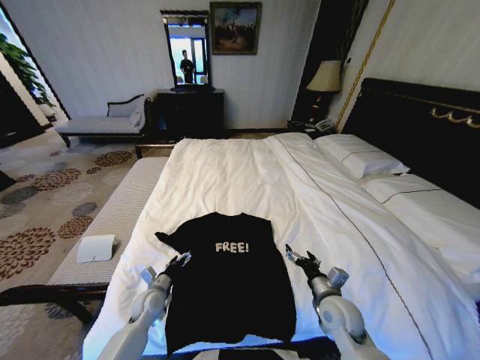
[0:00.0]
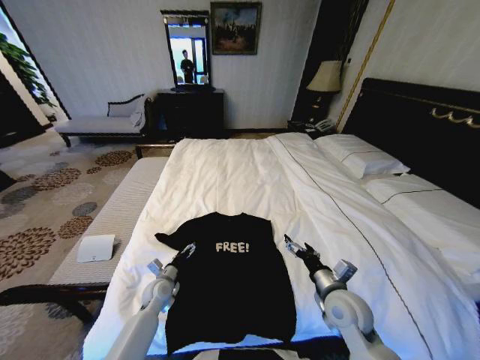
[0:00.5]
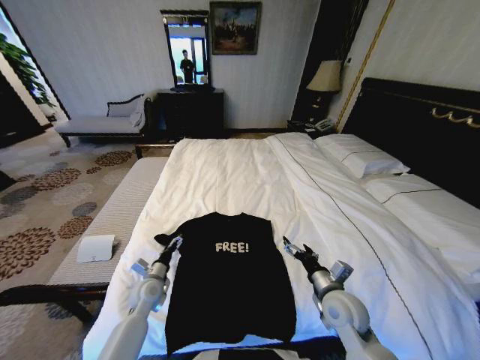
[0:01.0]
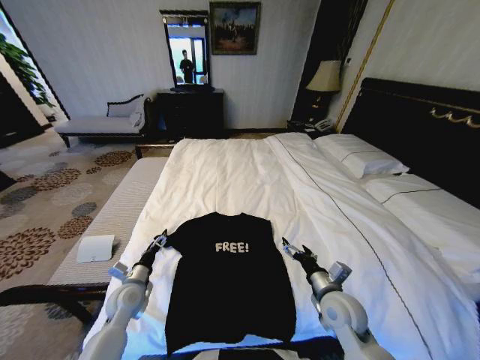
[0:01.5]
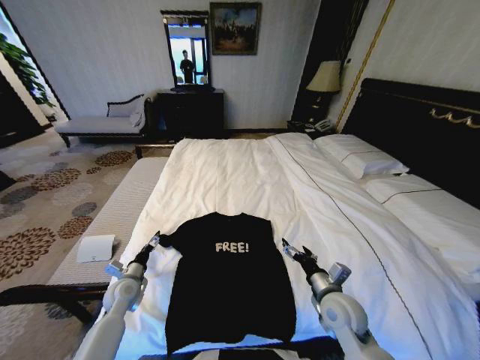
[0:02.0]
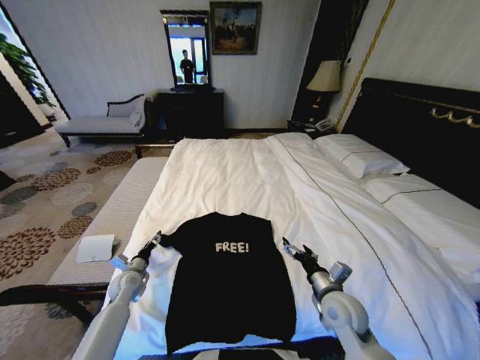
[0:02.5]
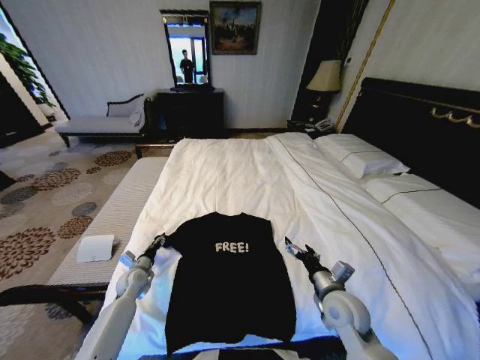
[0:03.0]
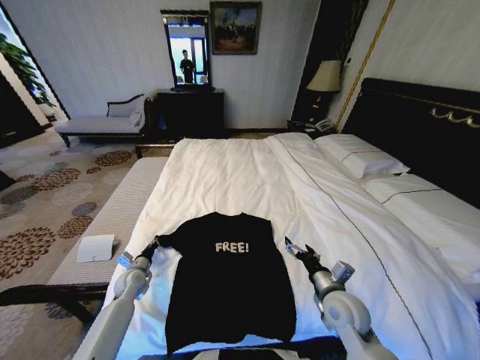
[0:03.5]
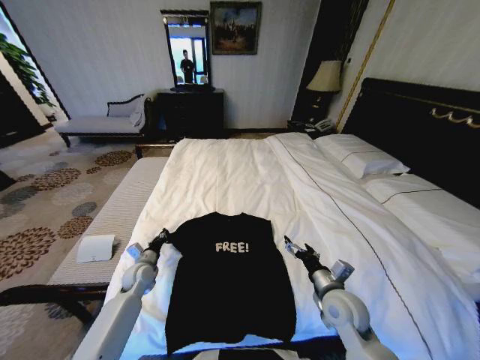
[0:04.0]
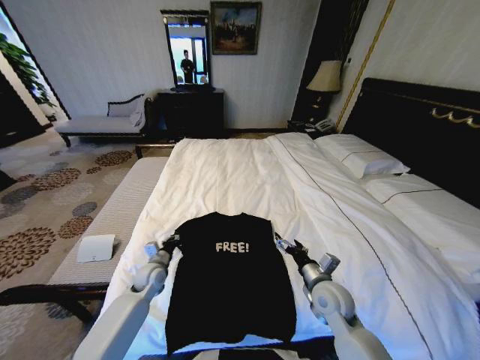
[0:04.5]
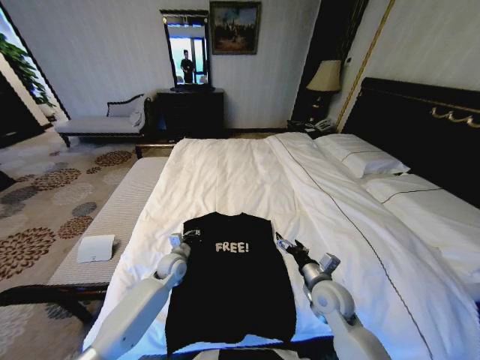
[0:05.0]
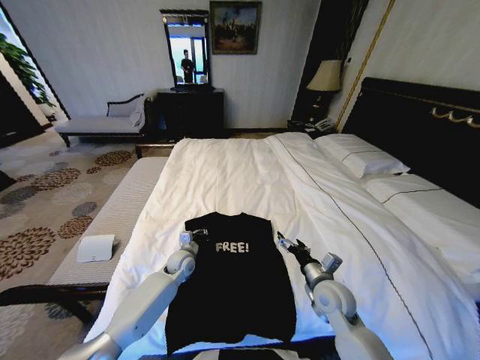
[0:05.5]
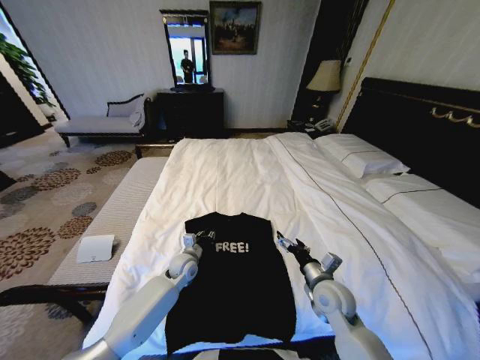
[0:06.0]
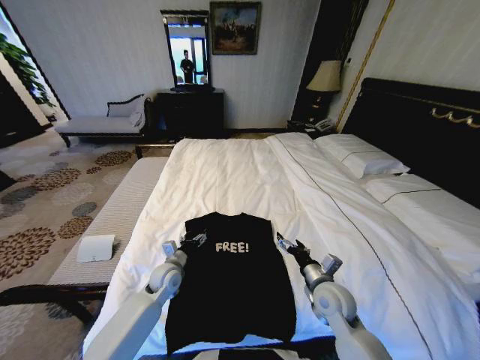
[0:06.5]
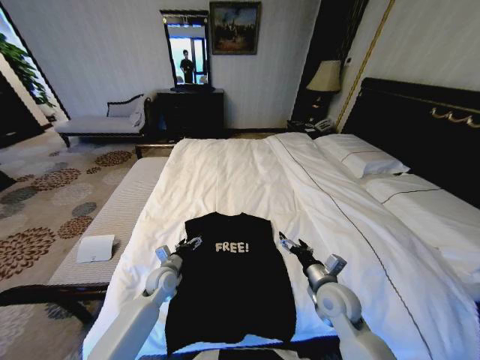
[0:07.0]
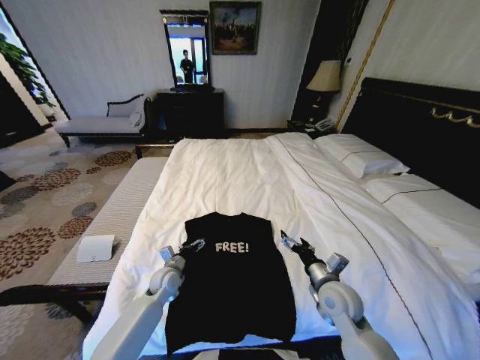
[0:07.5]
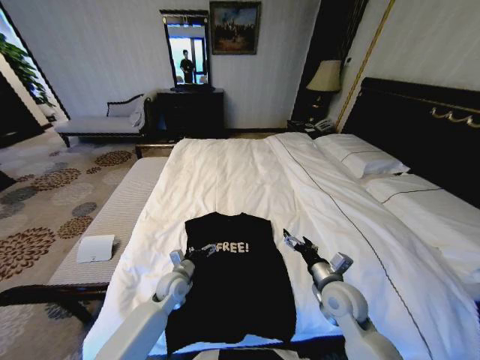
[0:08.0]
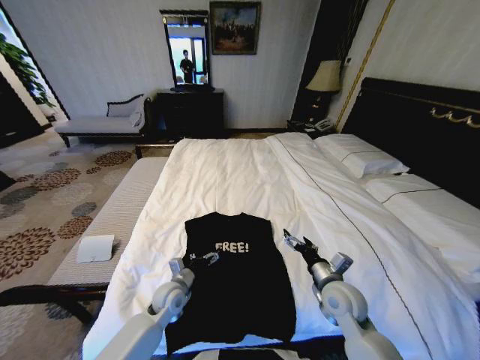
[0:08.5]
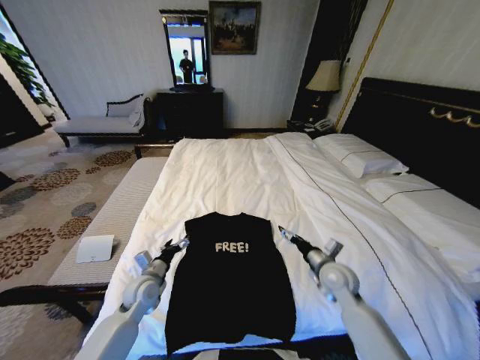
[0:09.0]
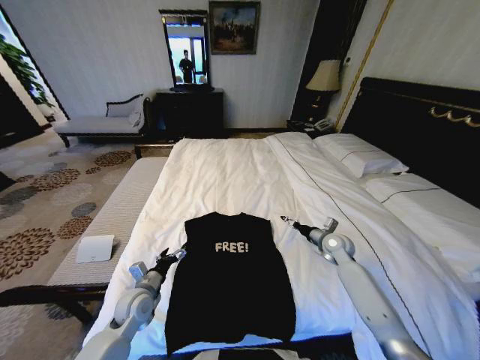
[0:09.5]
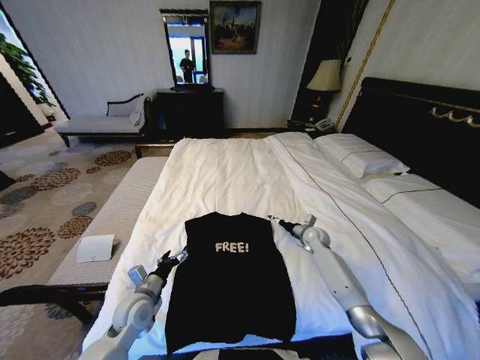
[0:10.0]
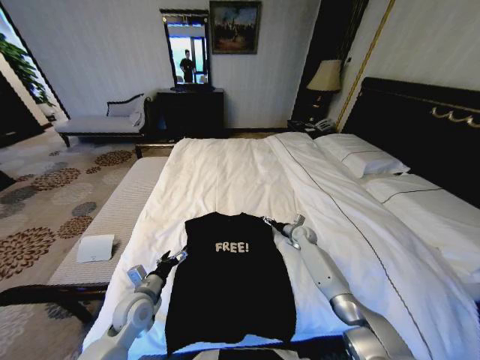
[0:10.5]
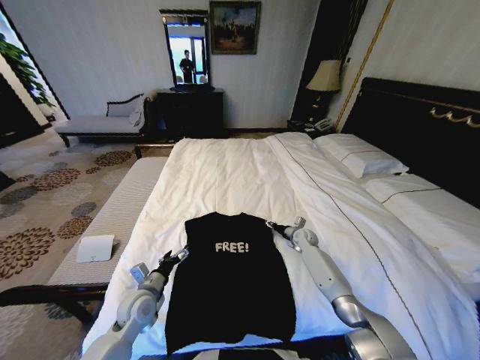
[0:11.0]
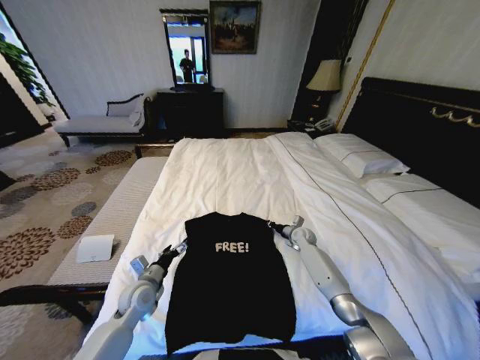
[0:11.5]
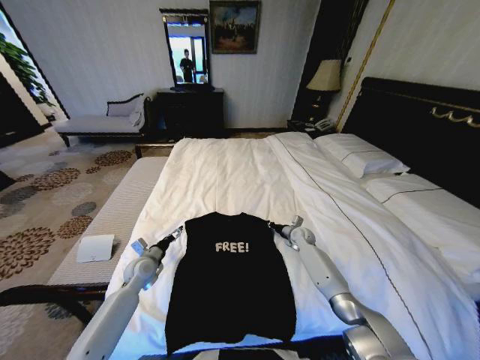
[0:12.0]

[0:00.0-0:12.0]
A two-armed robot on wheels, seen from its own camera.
Task of the whole recording: Fold the clothes on the bed.
0:00.0 to 0:02.0: The left gripper goes some 10 cm to the left.
0:02.0 to 0:04.0: The left gripper shifts roughly 5 cm forward, and closes.
0:04.0 to 0:06.0: The left gripper heads to the right, covering about 15 cm.
0:06.0 to 0:08.0: The left gripper travels backward by approximately 5 cm, and opens.
0:08.0 to 0:10.0: The left gripper heads backward and to the left, covering about 10 cm; the right gripper goes approximately 25 cm forward.
0:10.0 to 0:12.0: The left gripper heads forward, covering approximately 10 cm. Meanwhile the right gripper shifts by approximately 5 cm, and closes.

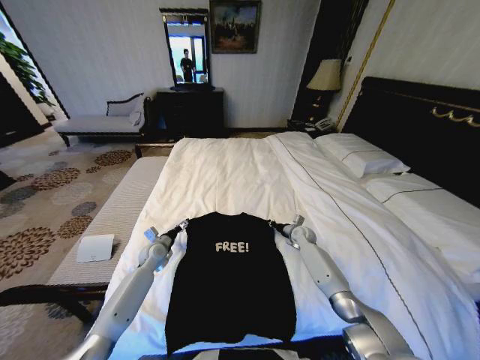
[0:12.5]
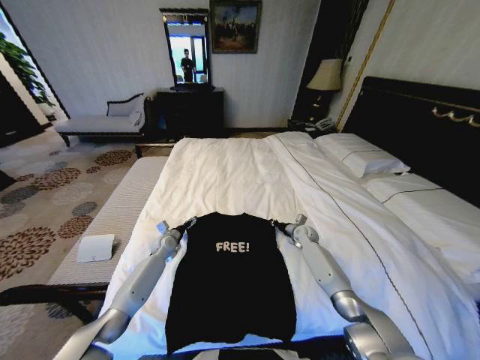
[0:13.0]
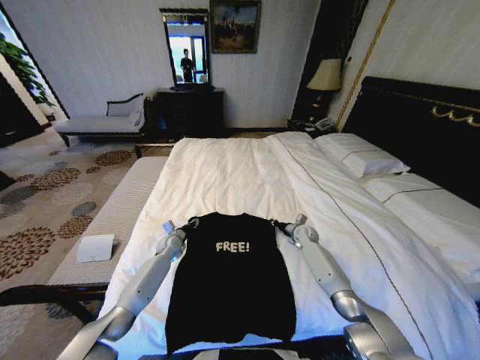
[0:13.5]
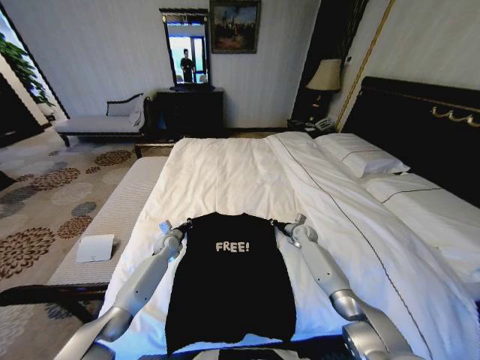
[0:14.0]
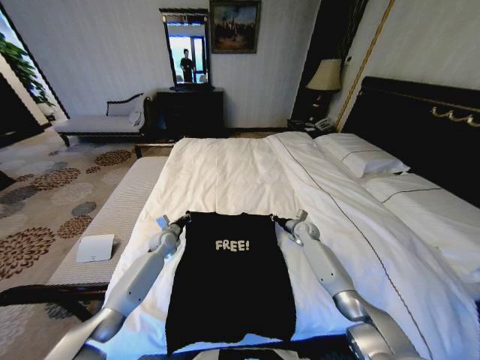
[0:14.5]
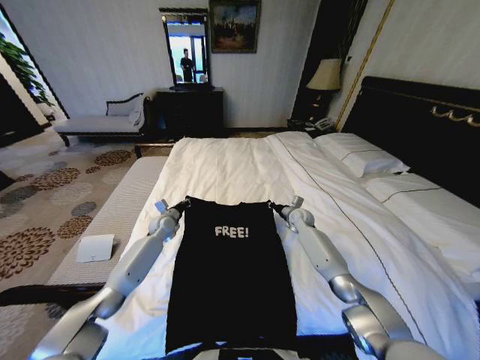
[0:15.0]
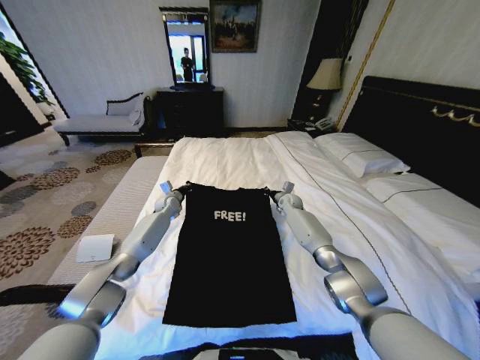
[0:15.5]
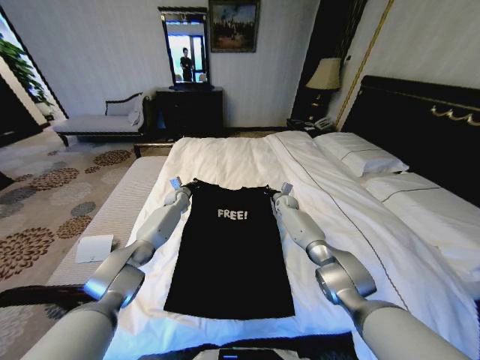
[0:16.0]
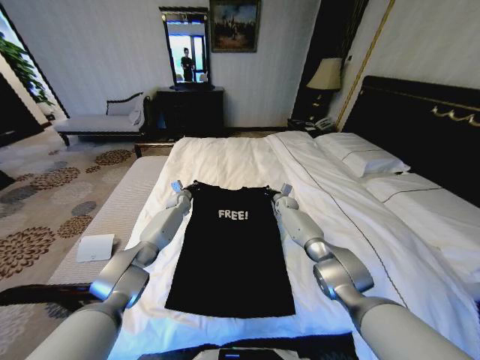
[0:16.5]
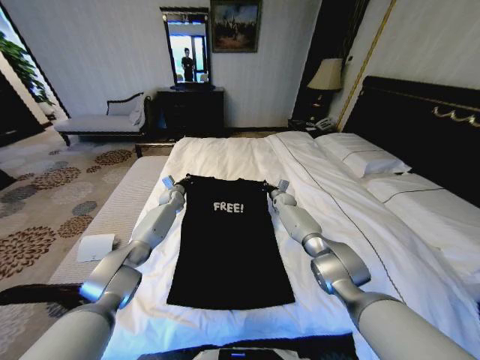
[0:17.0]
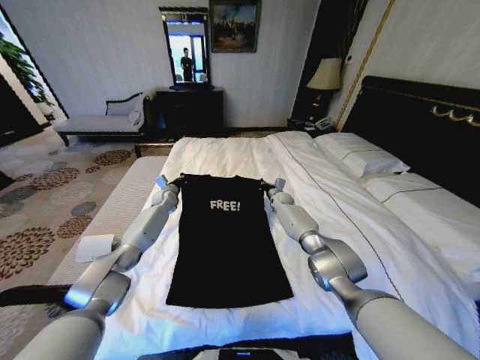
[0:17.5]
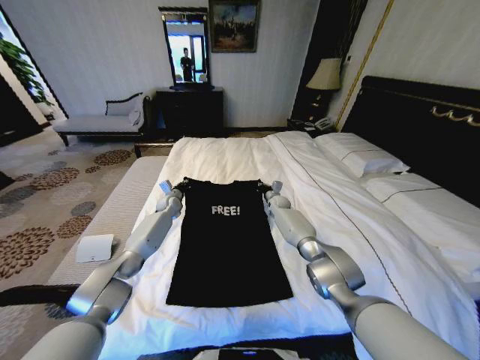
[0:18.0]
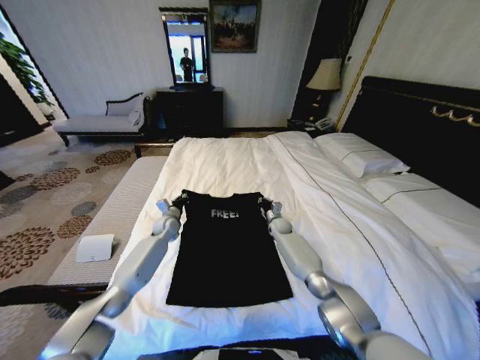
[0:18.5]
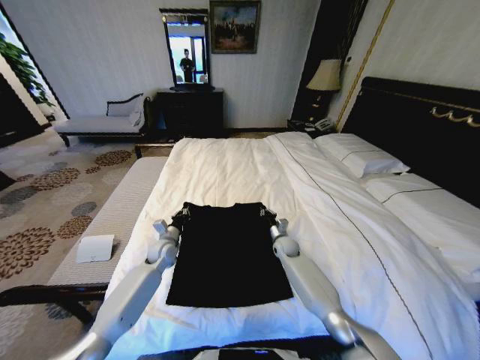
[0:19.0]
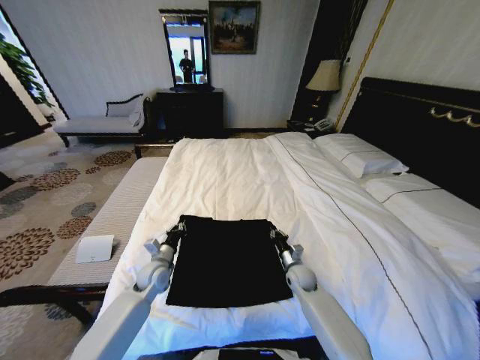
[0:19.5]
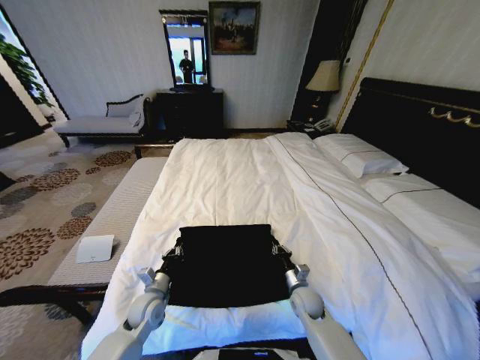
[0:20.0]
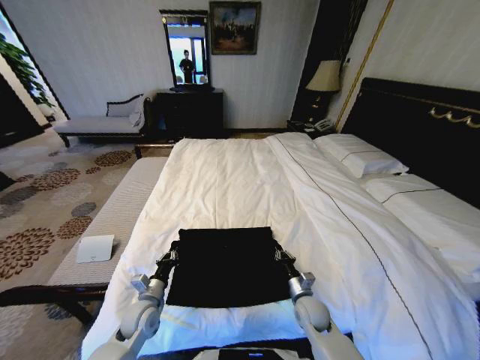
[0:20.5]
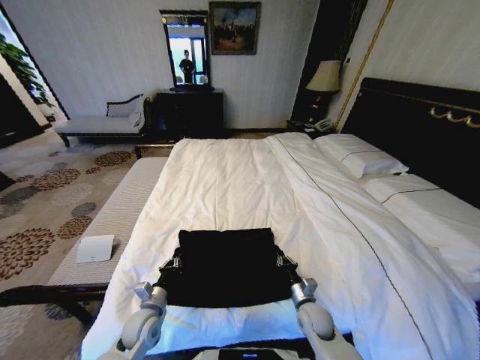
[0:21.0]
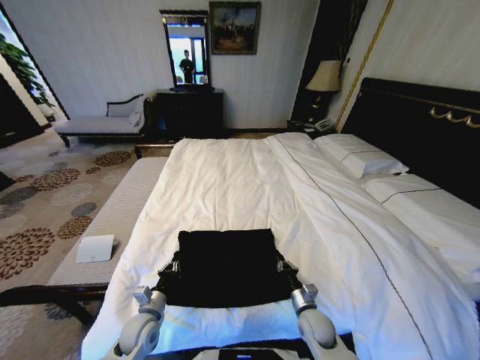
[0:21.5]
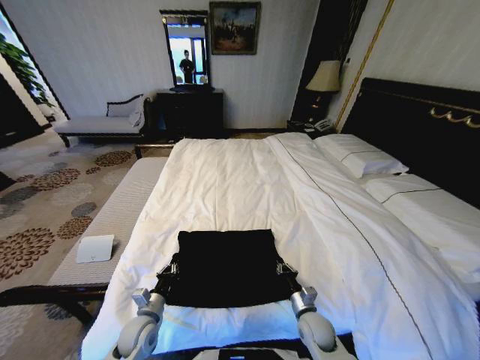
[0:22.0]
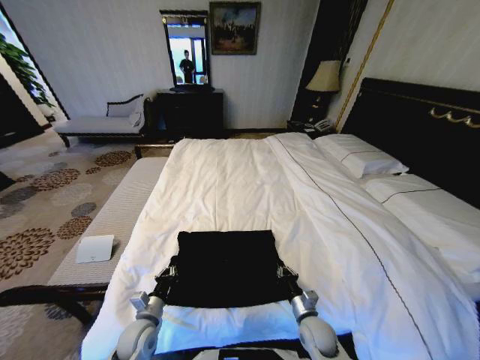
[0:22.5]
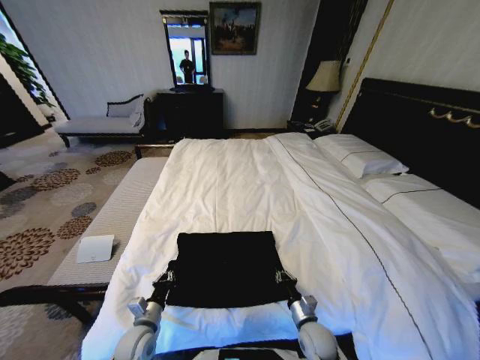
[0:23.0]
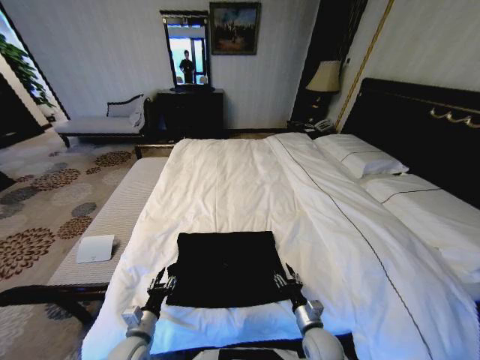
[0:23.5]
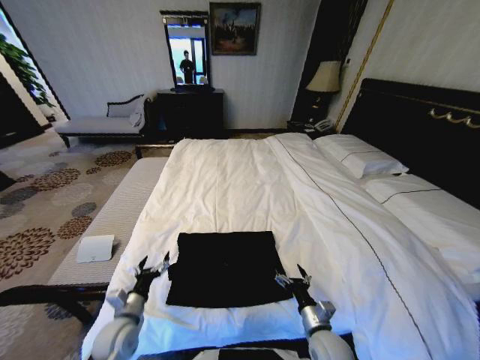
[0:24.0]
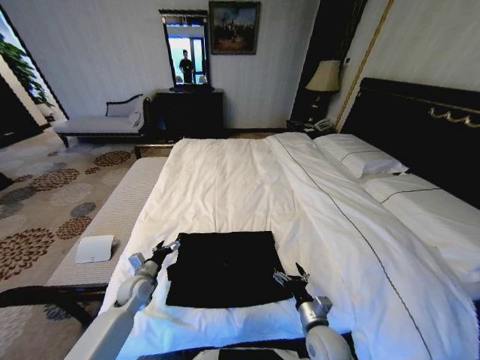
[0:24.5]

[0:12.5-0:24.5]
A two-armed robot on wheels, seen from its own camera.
Task of the whole recording: Fold the clothes on the bed.
0:12.5 to 0:14.5: The left gripper ends up approximately 5 cm from where it was, and closes its fingers.
0:14.5 to 0:16.5: The left gripper heads forward, covering roughly 15 cm, while the right gripper moves forward and to the left, some 15 cm.
0:16.5 to 0:18.5: The right gripper travels backward and downward by roughly 10 cm. Meanwhile the left gripper is displaced backward by approximately 10 cm.
0:18.5 to 0:20.5: The grippers both shift backward by about 30 cm.
0:20.5 to 0:22.5: The right gripper is displaced backward by roughly 5 cm. Meanwhile the left gripper changes place by roughly 5 cm.
0:22.5 to 0:24.5: The left gripper shifts some 15 cm forward and to the left, and opens; the right gripper shifts by roughly 5 cm, and opens its fingers.

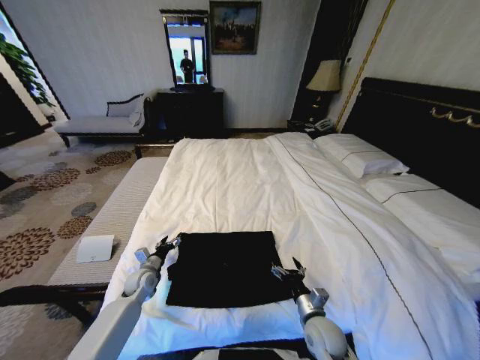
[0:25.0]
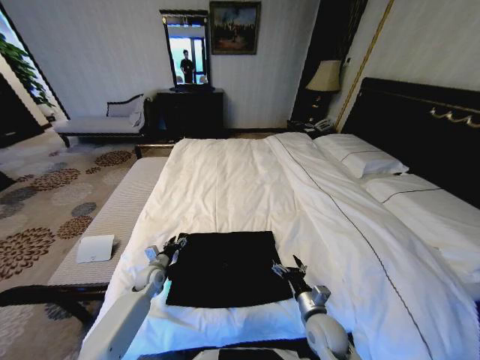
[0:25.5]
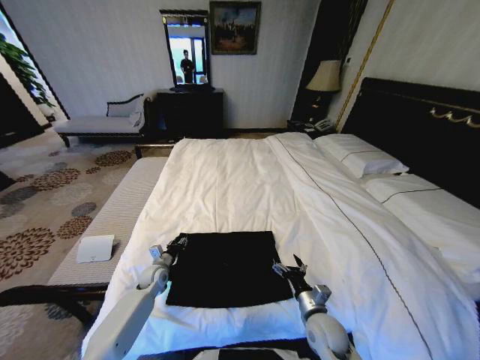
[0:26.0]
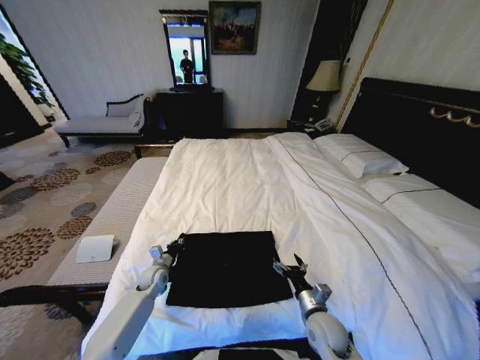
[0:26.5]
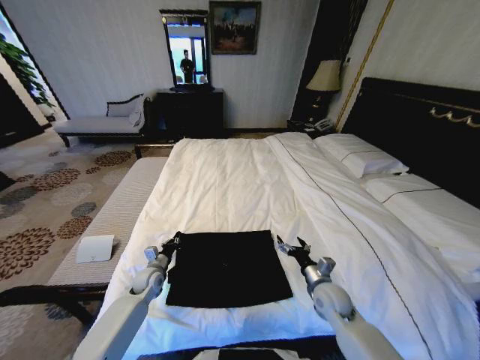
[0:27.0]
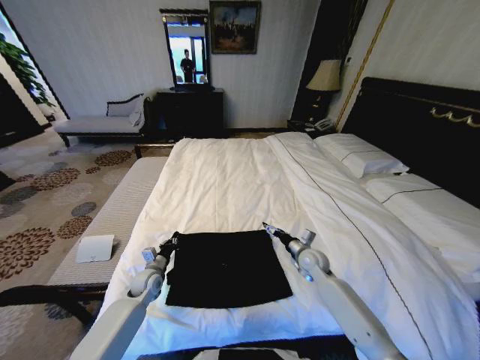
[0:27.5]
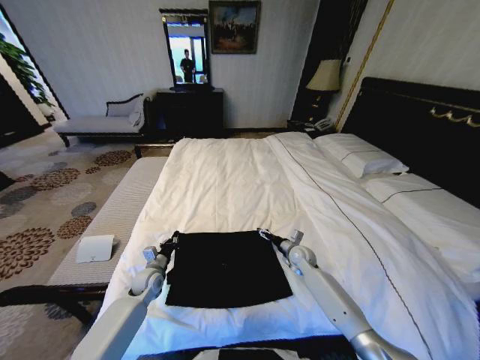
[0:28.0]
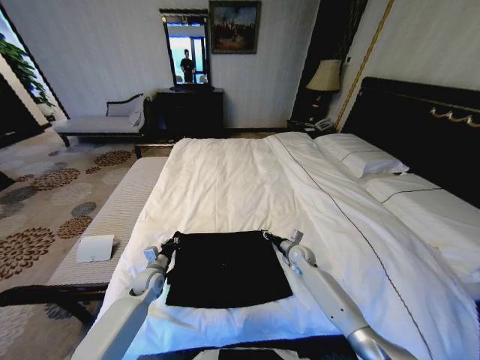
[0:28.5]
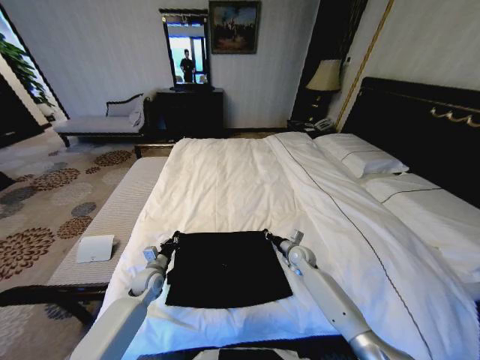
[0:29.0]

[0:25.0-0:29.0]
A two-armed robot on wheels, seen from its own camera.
Task of the whole recording: Fold the clothes on the bed.
0:25.0 to 0:27.0: The left gripper closes, while the right gripper heads forward, covering roughly 10 cm.
0:27.0 to 0:29.0: The right gripper heads forward, covering roughly 15 cm, and closes its fingers.
